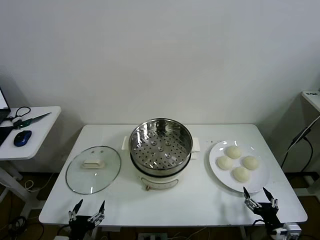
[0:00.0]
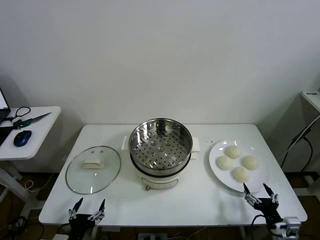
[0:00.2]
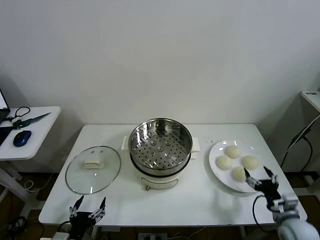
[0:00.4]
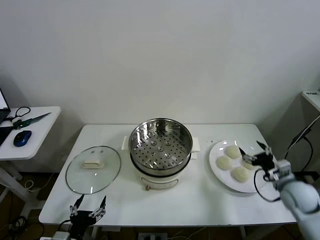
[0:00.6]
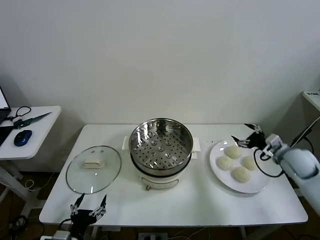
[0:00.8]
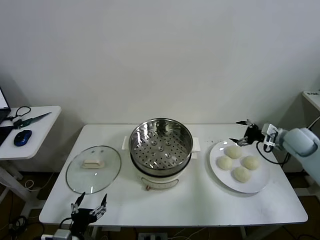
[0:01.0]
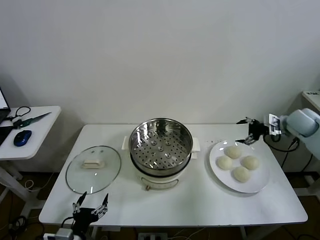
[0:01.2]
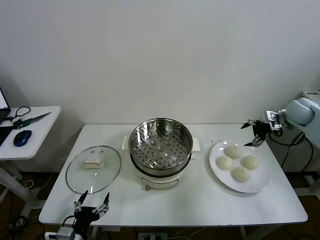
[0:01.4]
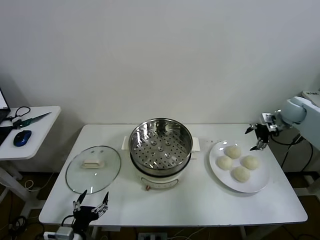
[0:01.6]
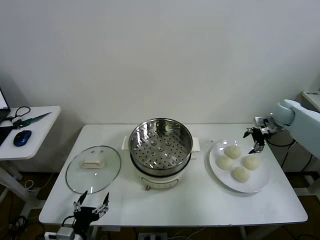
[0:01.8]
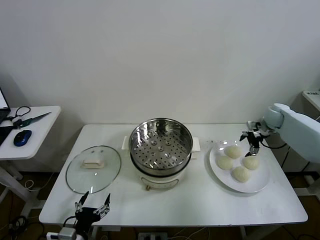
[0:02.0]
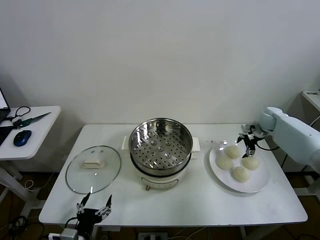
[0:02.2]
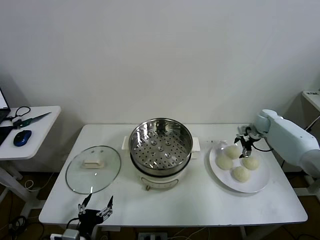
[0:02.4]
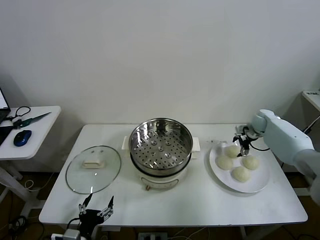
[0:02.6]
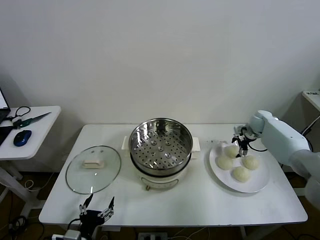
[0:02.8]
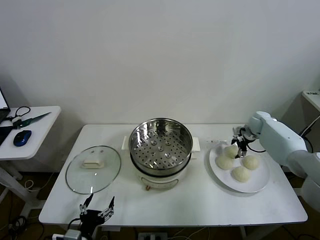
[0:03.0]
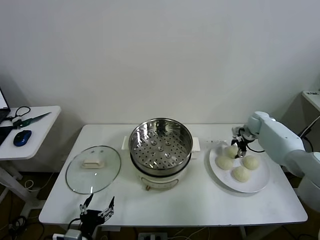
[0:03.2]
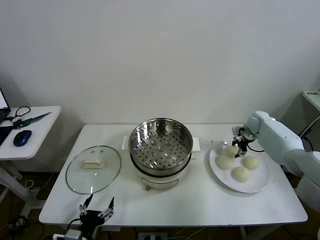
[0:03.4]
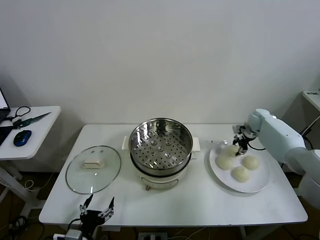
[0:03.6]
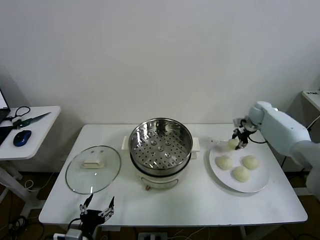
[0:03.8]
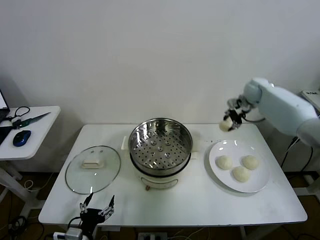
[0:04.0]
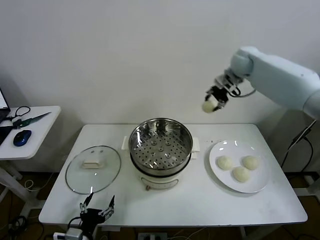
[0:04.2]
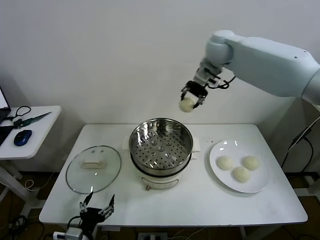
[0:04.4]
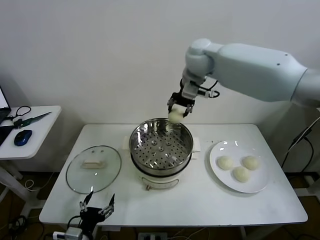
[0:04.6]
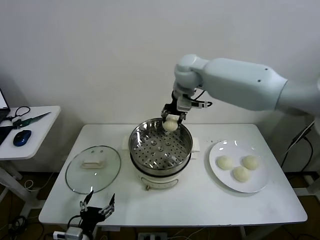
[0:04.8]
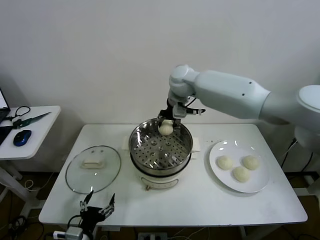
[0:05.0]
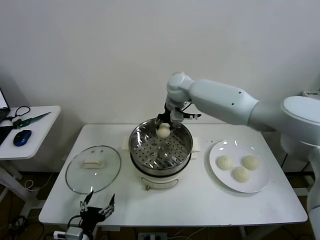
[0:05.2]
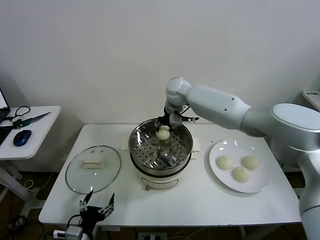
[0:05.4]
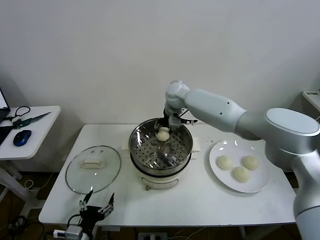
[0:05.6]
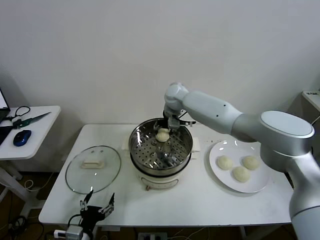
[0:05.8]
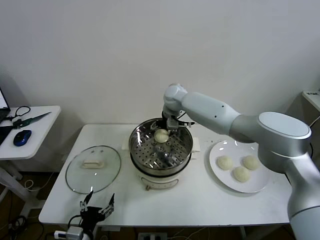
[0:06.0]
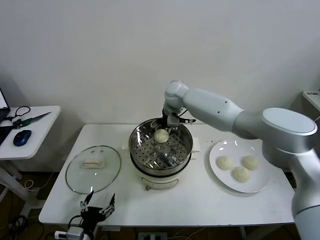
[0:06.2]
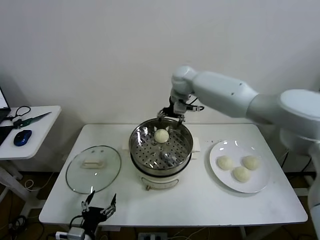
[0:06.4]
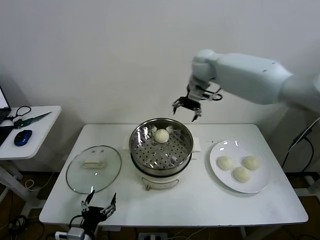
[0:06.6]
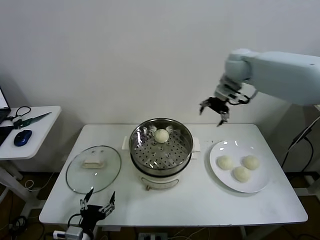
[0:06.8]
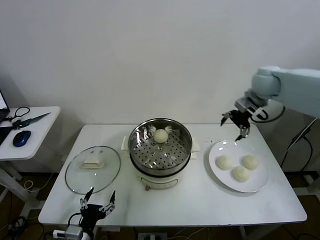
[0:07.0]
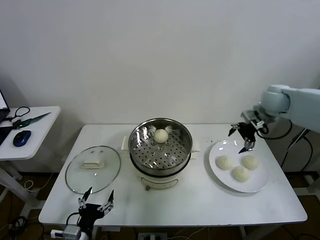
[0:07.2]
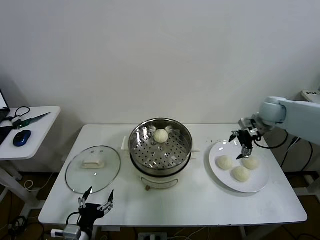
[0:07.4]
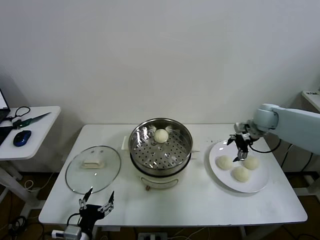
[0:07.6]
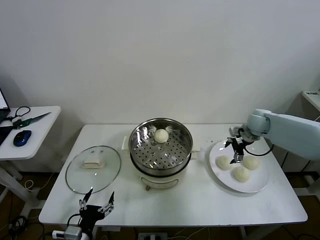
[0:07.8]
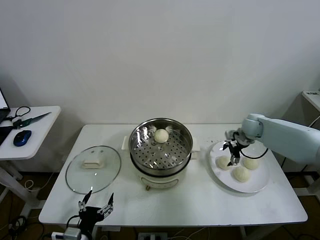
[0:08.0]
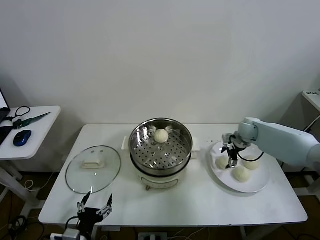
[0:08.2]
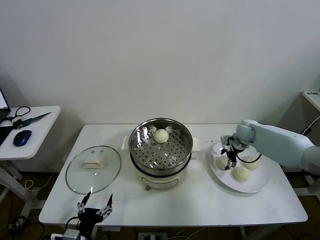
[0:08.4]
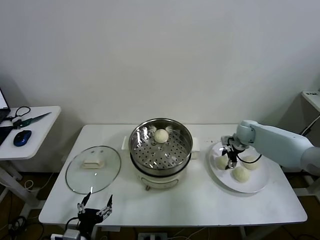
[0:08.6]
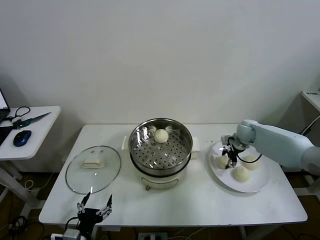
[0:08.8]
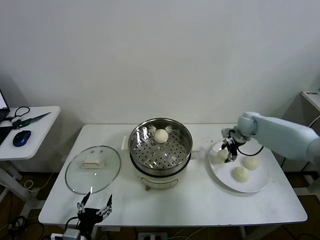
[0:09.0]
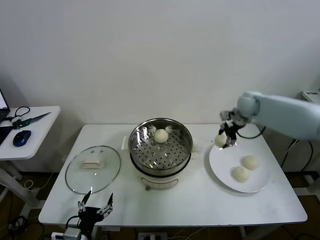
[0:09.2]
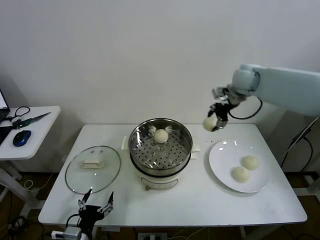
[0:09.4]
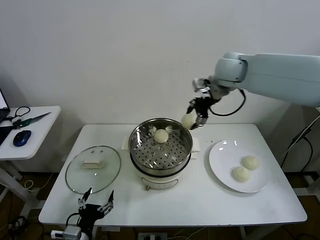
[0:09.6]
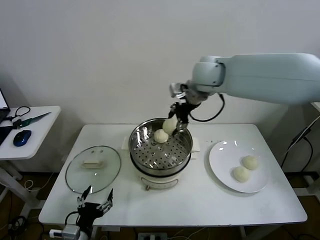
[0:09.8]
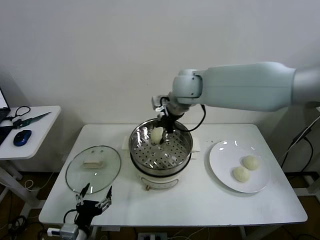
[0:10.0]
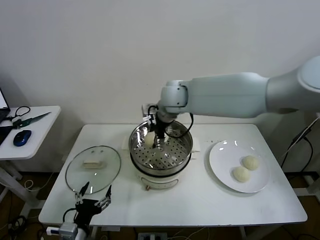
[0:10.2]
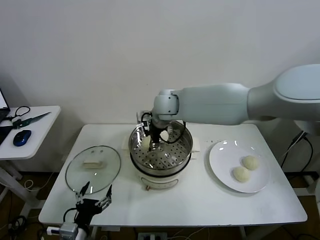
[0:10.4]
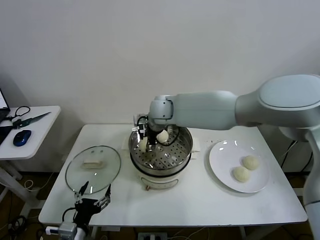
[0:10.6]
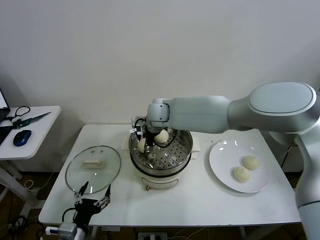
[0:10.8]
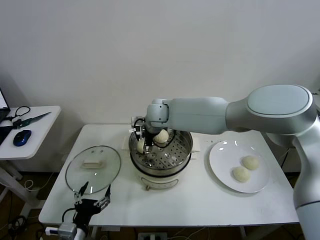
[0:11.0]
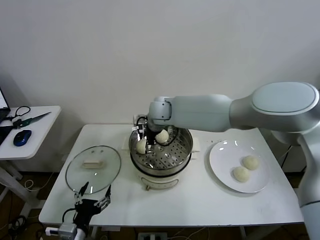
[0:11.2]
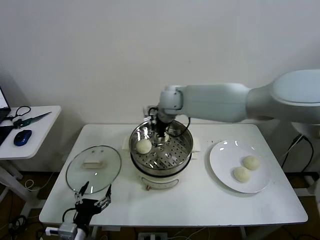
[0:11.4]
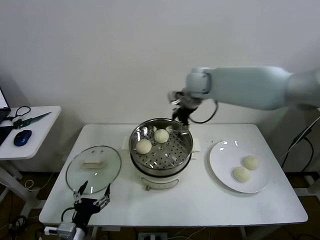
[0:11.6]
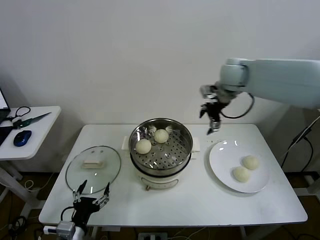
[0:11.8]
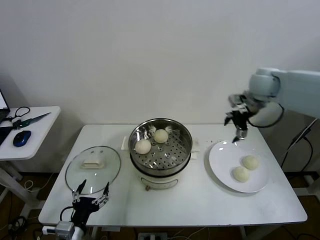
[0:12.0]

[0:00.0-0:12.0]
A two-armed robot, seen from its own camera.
Task of the whole recording: take steamed baozi put them in steamer then cover it.
Step, 0:00.0 to 0:03.2: Grasp the baozi in the plate with right gripper.
Step, 0:03.4 to 0:06.2: Place the baozi on the steamer with right gripper.
Step, 0:06.4 to 0:08.4: Grasp the baozi in the plate with right gripper.
Step, 0:08.8 to 0:11.0: Place the baozi on the steamer with right gripper.
0:01.6 to 0:03.0: The right gripper travels downward by about 10 cm.
0:03.0 to 0:04.4: The right gripper is displaced upward and to the left by roughly 40 cm, and closes.
0:04.4 to 0:06.0: The right gripper heads downward, covering roughly 15 cm, and opens.
0:06.0 to 0:07.6: The right gripper goes roughly 30 cm to the right.
0:07.6 to 0:09.0: The right gripper travels downward and back again, some 10 cm each way, and closes.
0:09.0 to 0:10.4: The right gripper goes about 35 cm to the left.
0:10.4 to 0:12.0: The right gripper is displaced to the right by some 35 cm, and opens its fingers.

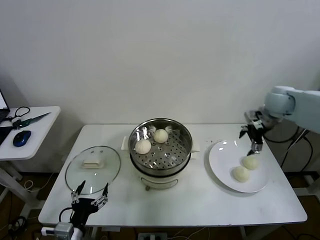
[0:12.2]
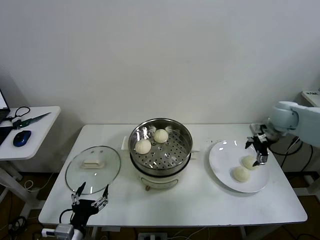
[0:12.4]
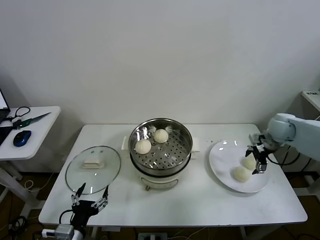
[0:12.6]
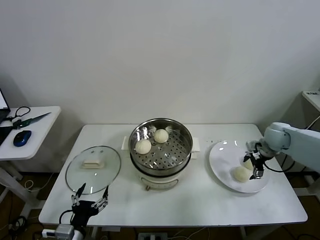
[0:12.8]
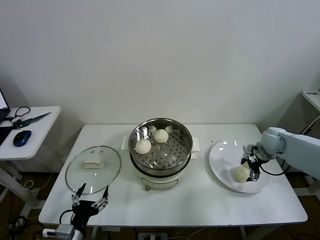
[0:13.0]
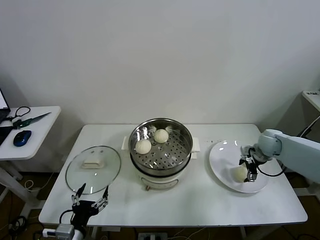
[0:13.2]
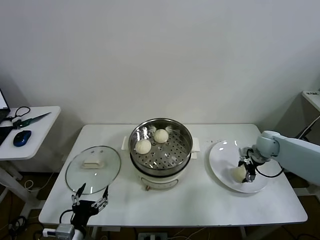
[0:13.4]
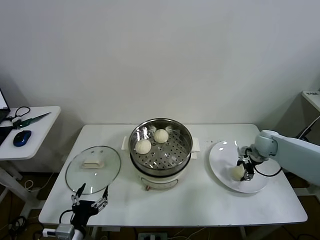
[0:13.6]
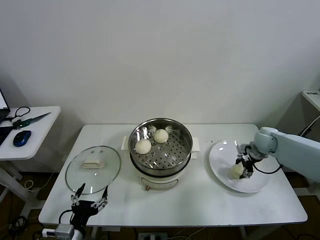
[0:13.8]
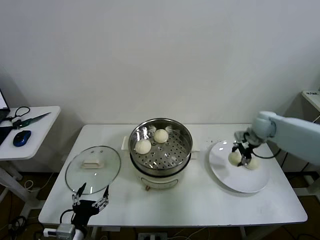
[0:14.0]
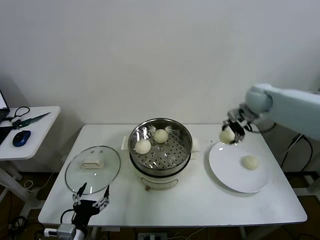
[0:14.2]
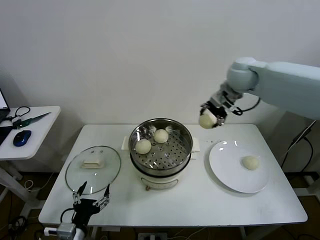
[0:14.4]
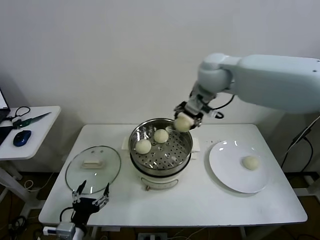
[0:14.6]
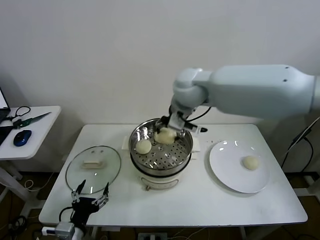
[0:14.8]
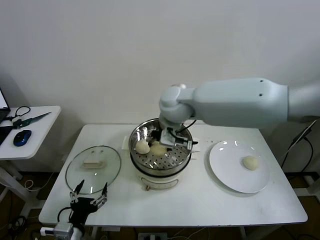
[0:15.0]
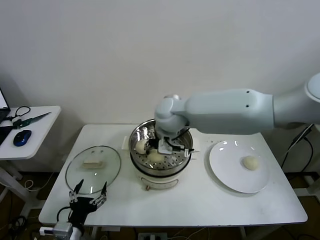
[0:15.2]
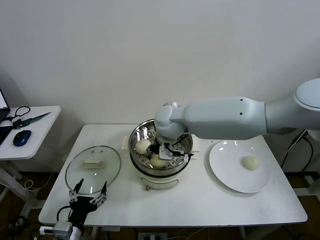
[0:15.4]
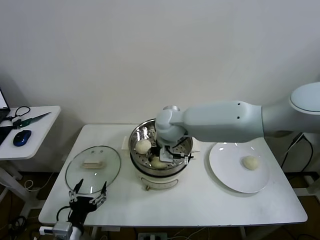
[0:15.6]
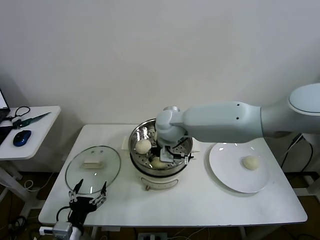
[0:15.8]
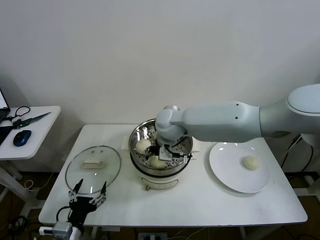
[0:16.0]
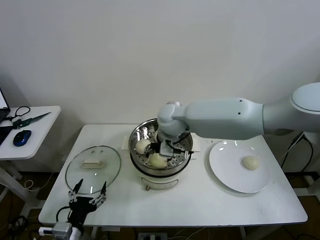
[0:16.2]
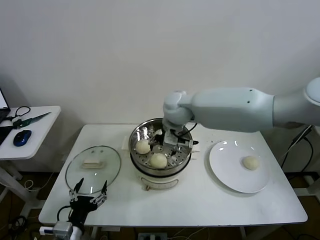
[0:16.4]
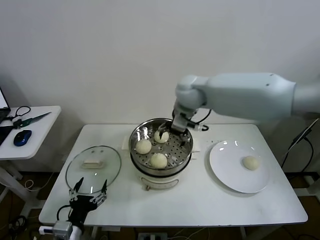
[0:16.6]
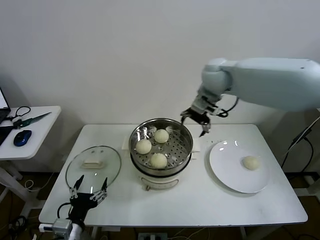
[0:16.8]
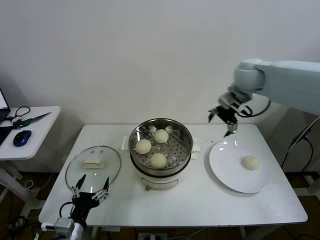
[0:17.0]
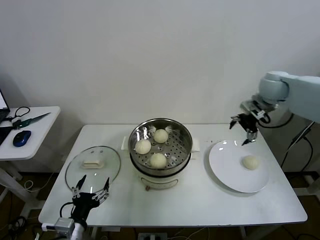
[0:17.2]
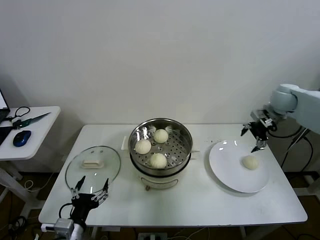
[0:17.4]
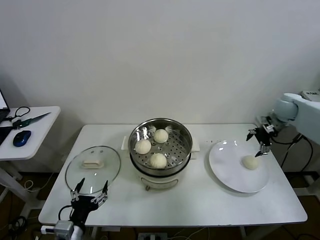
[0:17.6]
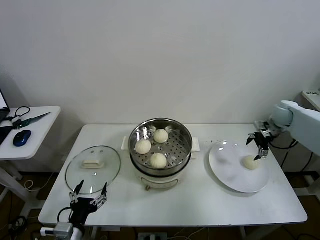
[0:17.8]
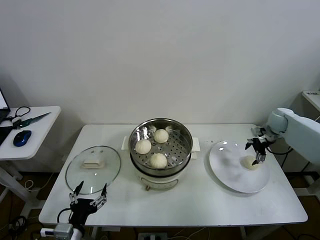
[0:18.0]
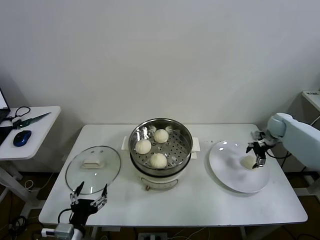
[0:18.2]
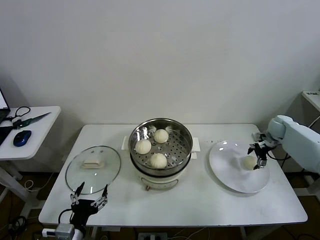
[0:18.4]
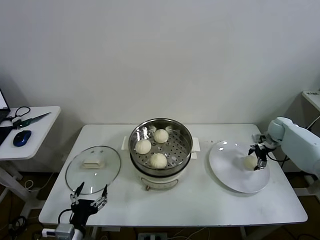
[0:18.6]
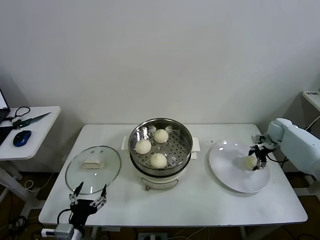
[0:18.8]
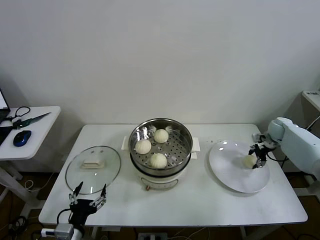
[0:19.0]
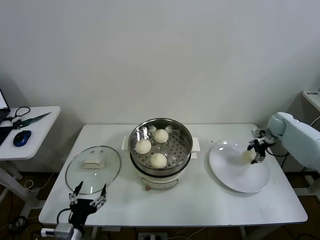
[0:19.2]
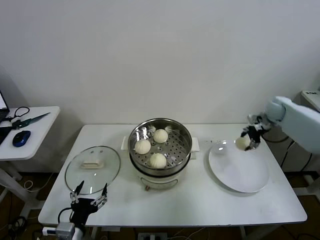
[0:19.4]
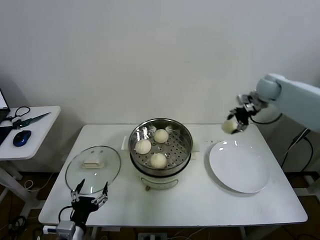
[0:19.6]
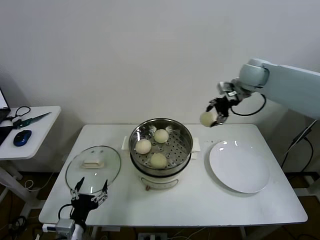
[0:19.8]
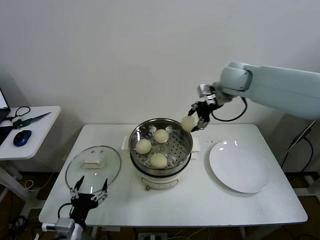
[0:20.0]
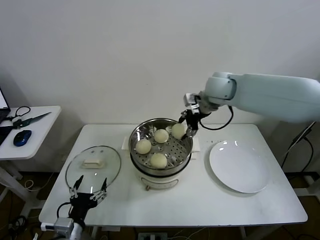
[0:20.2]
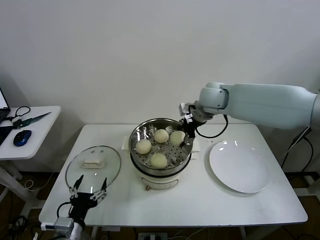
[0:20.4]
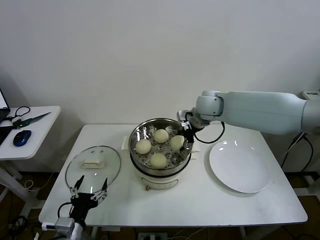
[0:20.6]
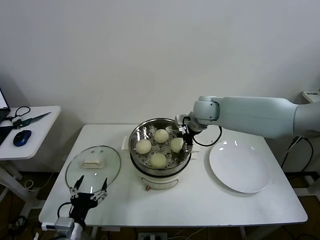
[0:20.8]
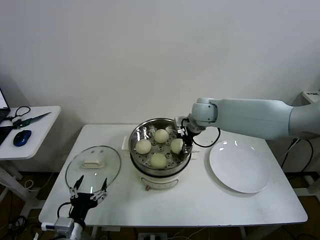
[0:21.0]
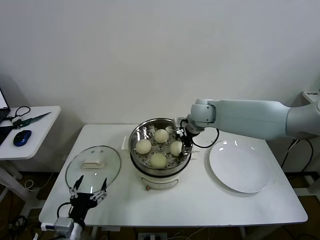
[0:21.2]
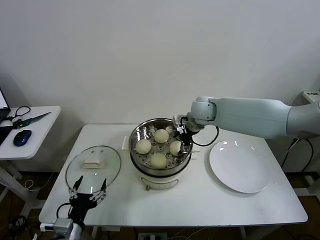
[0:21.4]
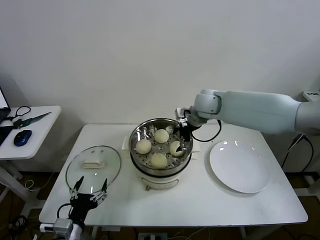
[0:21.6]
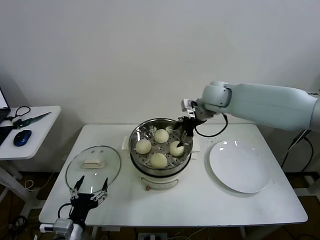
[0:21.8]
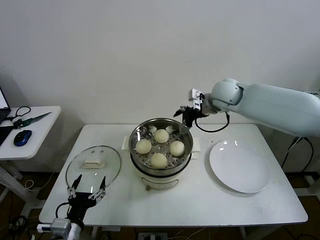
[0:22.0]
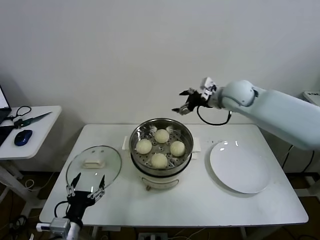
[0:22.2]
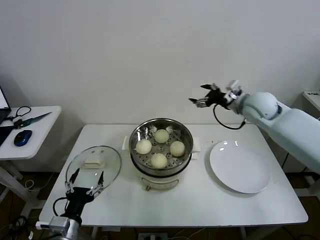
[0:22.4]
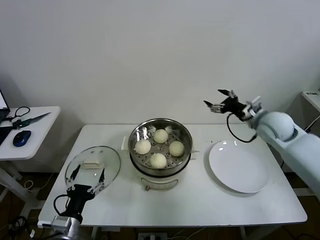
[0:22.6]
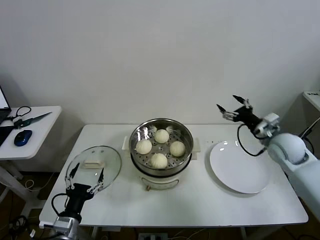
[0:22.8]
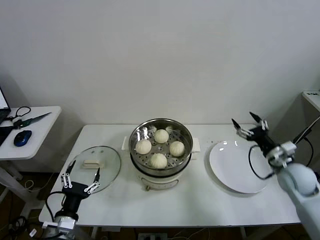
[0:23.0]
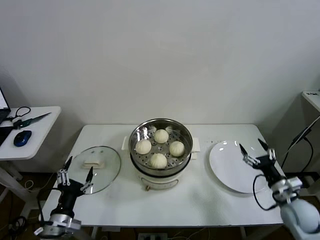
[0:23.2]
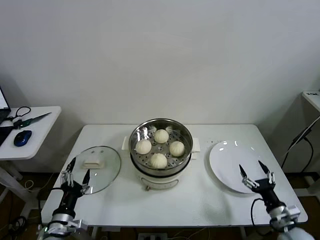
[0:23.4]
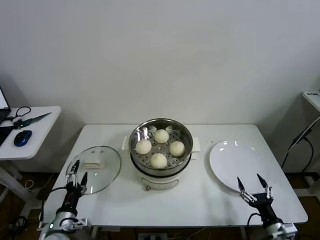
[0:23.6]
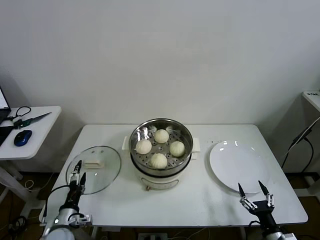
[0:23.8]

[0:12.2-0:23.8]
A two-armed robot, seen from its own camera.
Task of the whole recording: take steamed baozi put them in steamer then cover it.
Step, 0:12.2 to 0:13.4: Grasp the baozi in the plate with right gripper.
Step, 0:13.6 to 0:16.0: Place the baozi on the steamer with right gripper.
Step, 0:16.2 to 0:18.8: Grasp the baozi in the plate with right gripper.
Step, 0:19.0 to 0:21.6: Place the baozi on the steamer with right gripper.
0:12.2 to 0:13.6: The right gripper heads downward, covering approximately 15 cm, and closes up.
0:13.6 to 0:15.0: The right gripper is displaced to the left and upward by about 40 cm.
0:15.0 to 0:16.6: The right gripper goes approximately 10 cm to the right and forward, and opens its fingers.
0:16.6 to 0:18.0: The right gripper heads to the right and downward, covering approximately 40 cm.
0:18.0 to 0:19.4: The right gripper travels upward by roughly 10 cm, and closes up.
0:19.4 to 0:21.0: The right gripper goes roughly 30 cm to the left.
0:21.0 to 0:22.4: The right gripper goes approximately 15 cm to the right, and opens up.
0:22.4 to 0:23.8: The right gripper moves backward and downward, about 50 cm, while the left gripper heads downward, forward and to the left, covering some 15 cm.
